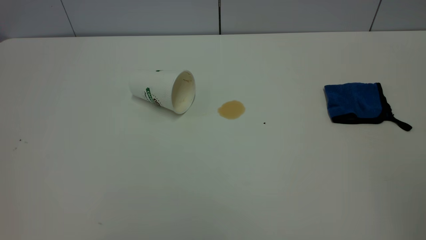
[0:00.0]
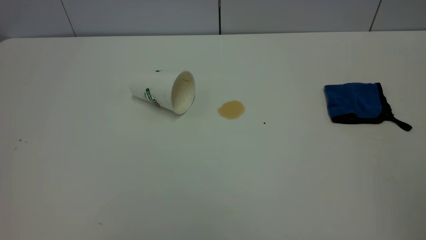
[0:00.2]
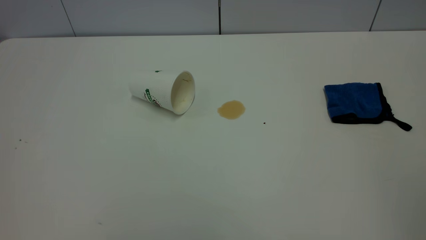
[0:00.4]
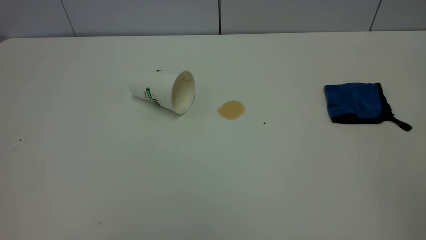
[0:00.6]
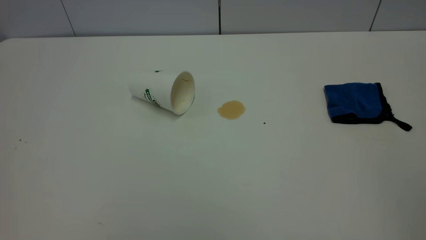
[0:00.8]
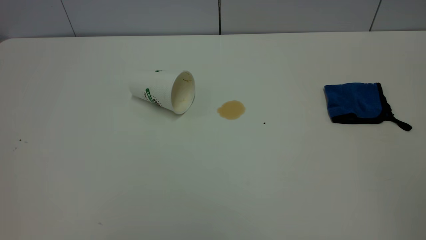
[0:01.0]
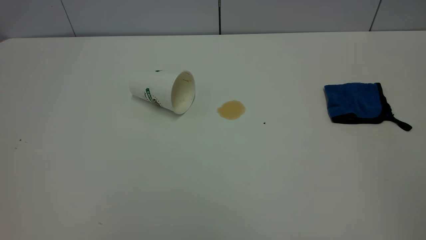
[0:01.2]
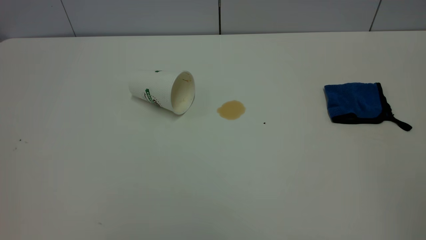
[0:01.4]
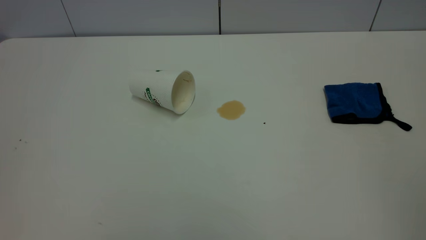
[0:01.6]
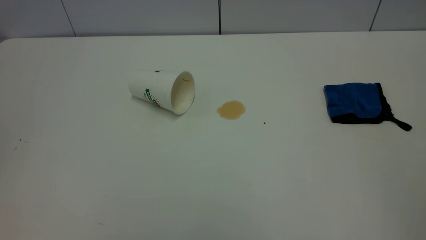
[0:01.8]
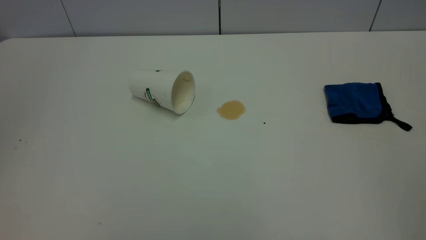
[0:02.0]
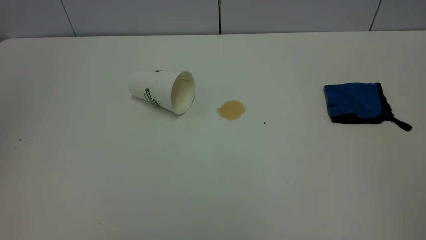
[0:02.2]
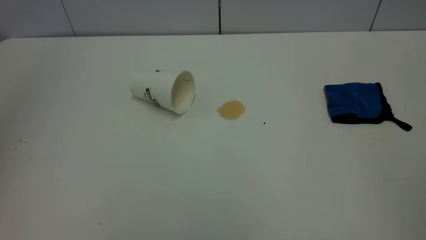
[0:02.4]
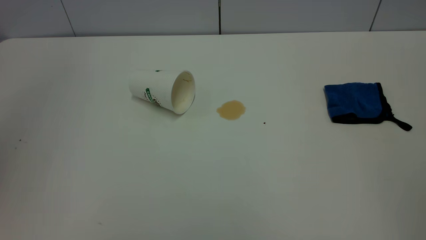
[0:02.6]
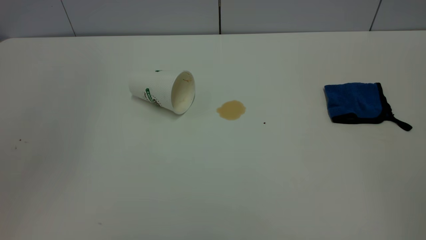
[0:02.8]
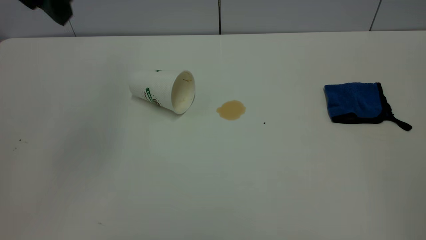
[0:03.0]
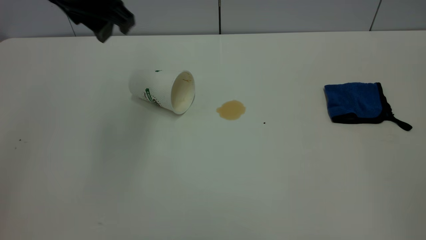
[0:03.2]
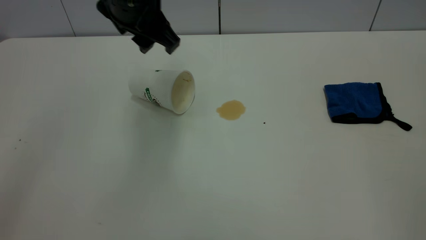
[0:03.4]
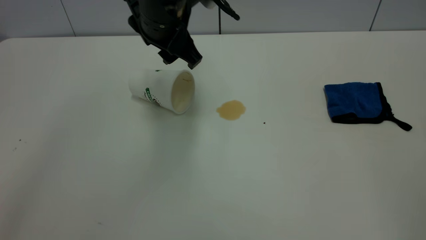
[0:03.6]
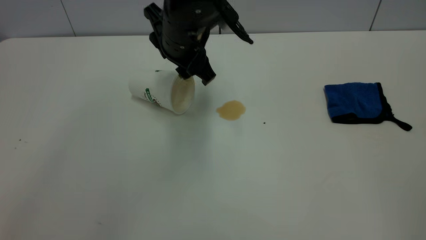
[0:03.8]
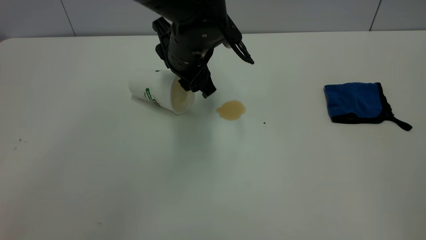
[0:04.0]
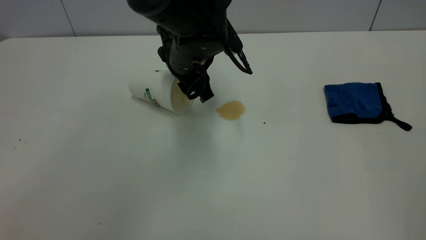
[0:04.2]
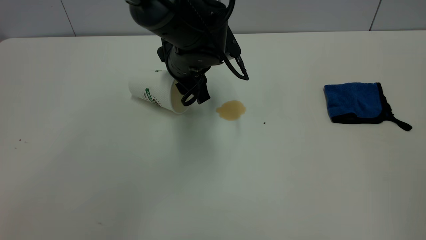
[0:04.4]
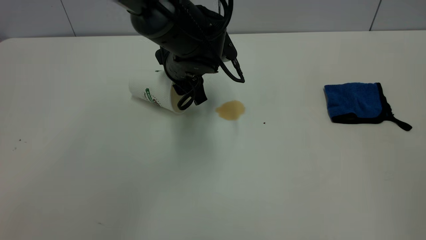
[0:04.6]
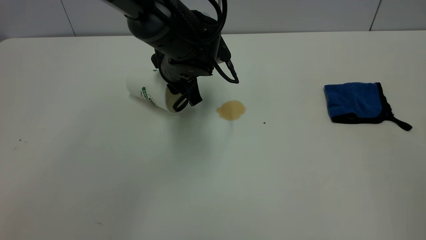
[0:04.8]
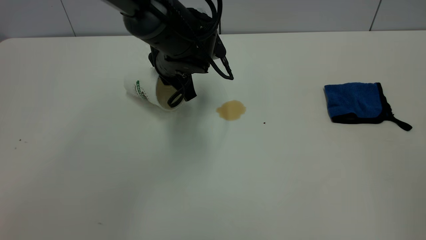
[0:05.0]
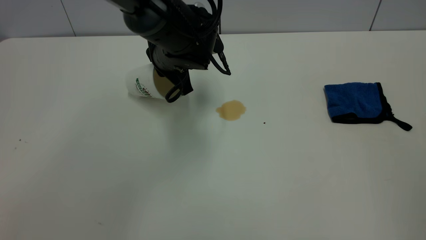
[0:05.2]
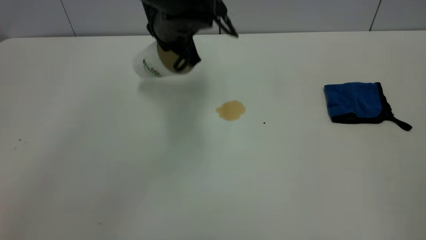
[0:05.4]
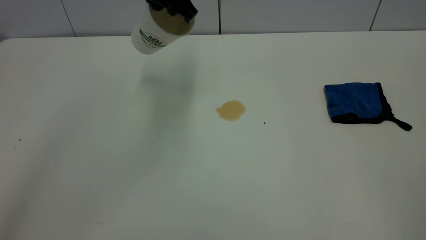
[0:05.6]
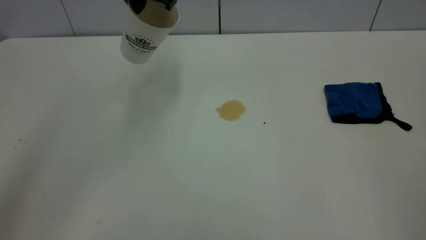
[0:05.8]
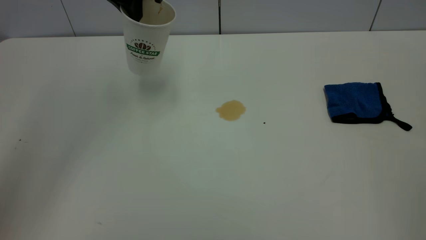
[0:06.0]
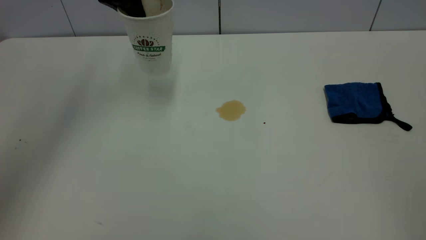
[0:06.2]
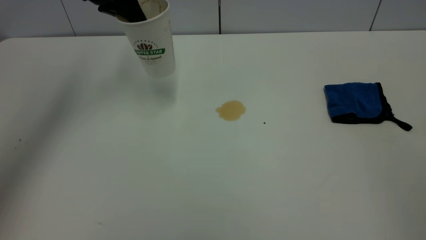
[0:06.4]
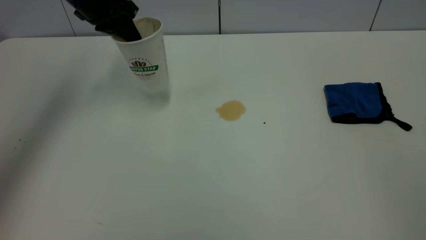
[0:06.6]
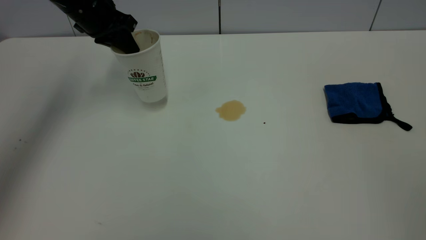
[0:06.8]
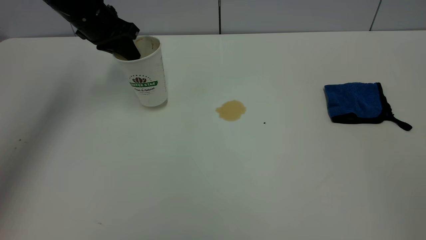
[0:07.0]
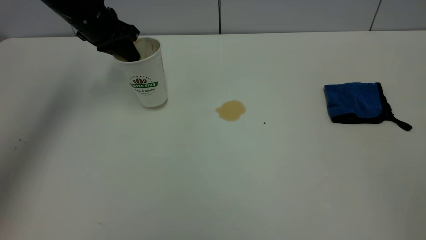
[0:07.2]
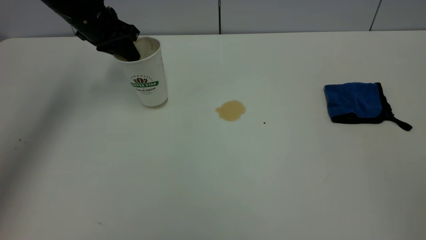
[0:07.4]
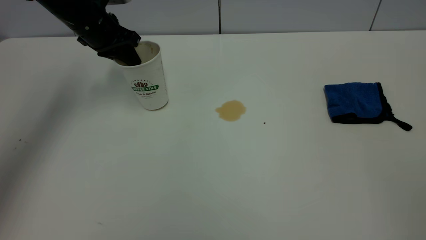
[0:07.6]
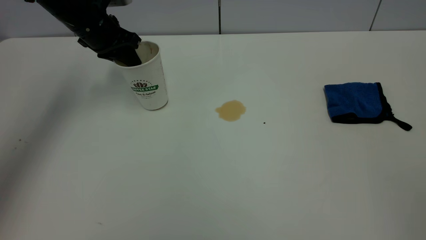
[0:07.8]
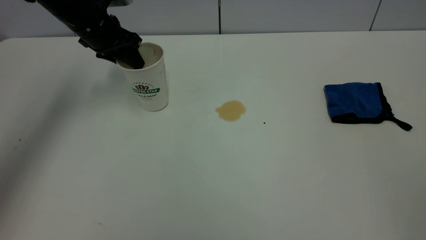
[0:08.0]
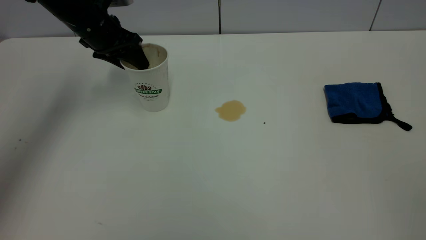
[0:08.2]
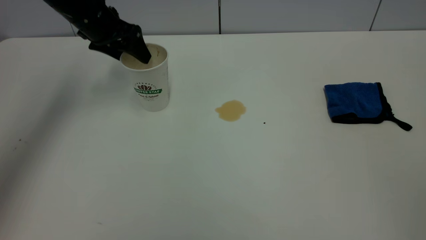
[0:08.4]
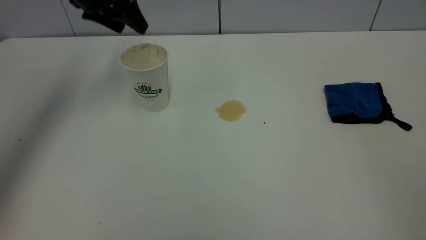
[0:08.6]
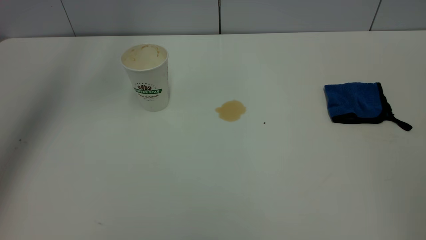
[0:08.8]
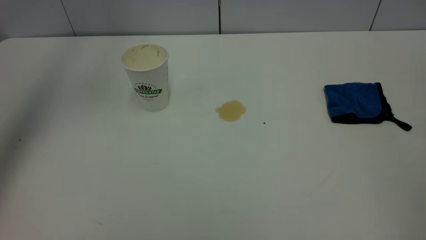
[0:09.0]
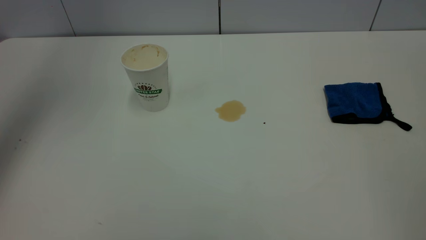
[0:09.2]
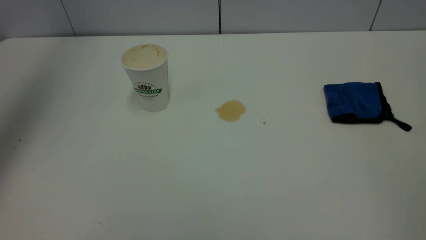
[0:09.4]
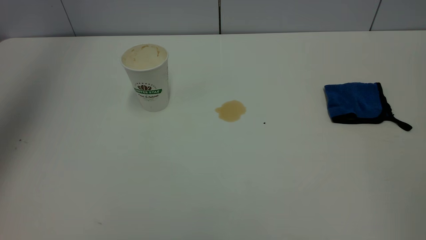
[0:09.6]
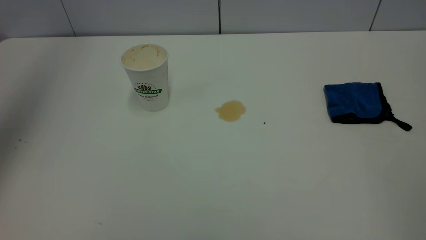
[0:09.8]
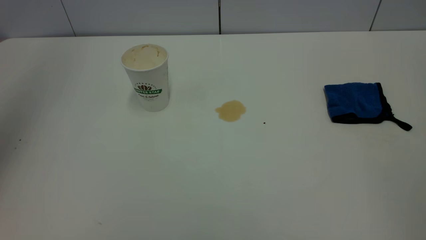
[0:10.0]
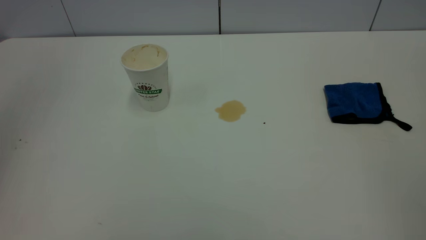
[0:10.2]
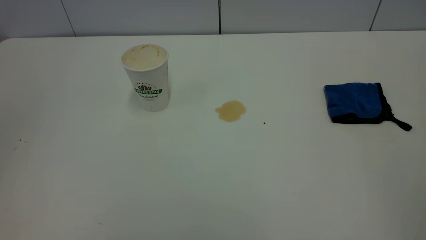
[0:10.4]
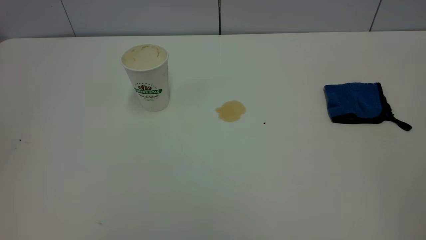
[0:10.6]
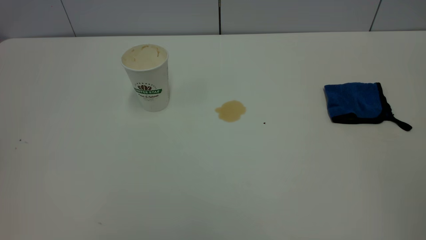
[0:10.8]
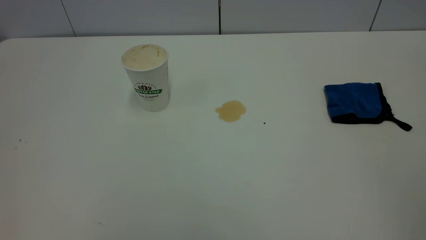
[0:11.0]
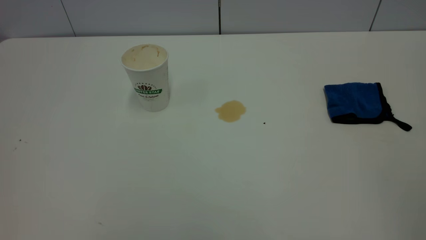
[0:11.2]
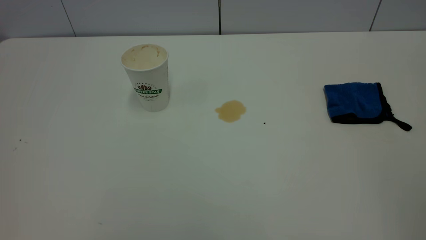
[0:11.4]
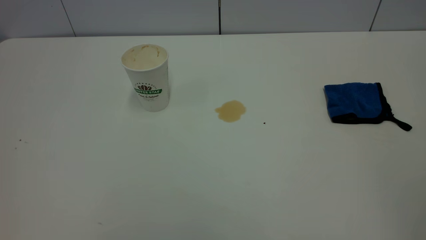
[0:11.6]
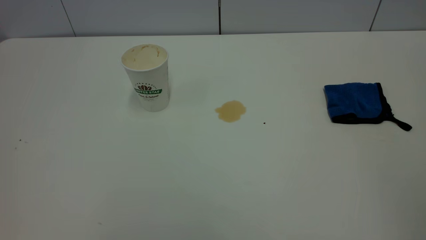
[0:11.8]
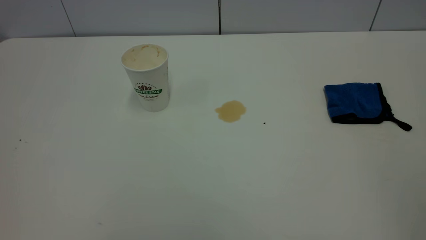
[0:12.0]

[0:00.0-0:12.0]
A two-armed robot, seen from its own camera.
Task of the whole recording: the left gripper pick up the fallen cup and place it upright, the right gripper grasp the blue rag and wipe the tea stain on the table, the right gripper put the blue rag back in its original position.
Step, 0:00.0 to 0:08.4: Stand the paper cup upright.
0:01.6 to 0:03.0: The left gripper moves forward and to the right, approximately 35 cm.
0:03.0 to 0:04.4: The left gripper heads downward and to the right, covering roughly 25 cm.
0:04.4 to 0:06.0: The left gripper travels upward, to the left and forward by about 20 cm, and closes its fingers.
0:06.0 to 0:07.6: The left gripper travels downward and to the left by roughly 15 cm.
0:07.6 to 0:09.0: The left gripper shifts about 25 cm upward, and opens its fingers.
0:09.0 to 0:10.4: The left gripper is displaced backward by approximately 30 cm.

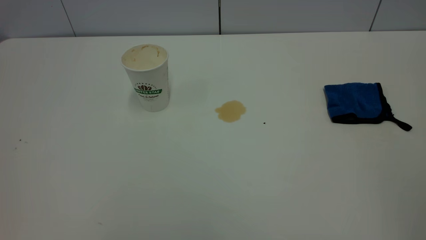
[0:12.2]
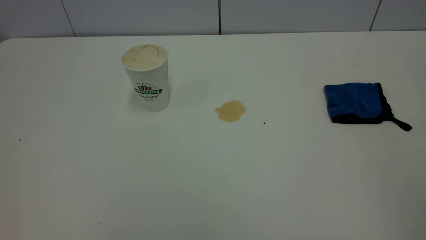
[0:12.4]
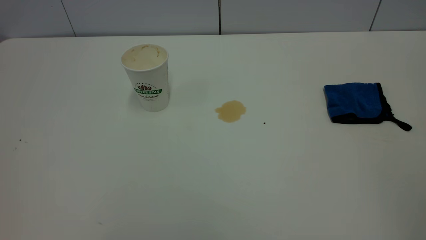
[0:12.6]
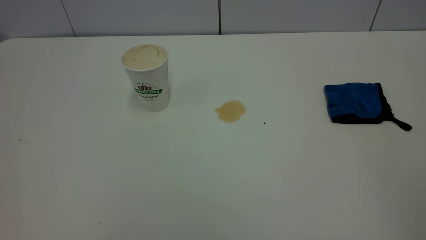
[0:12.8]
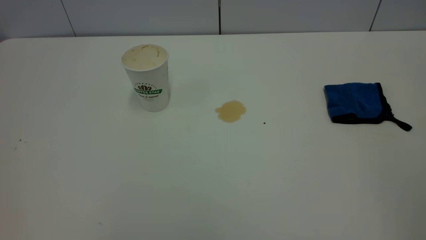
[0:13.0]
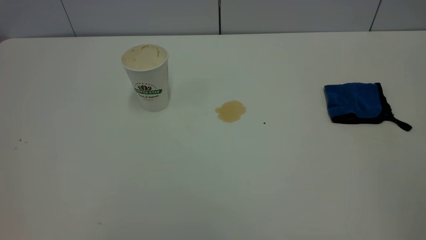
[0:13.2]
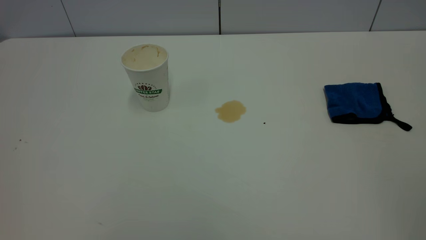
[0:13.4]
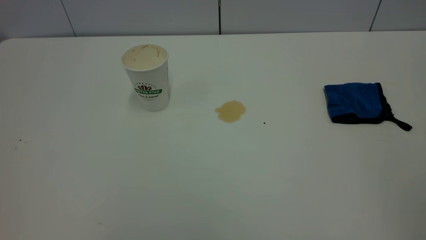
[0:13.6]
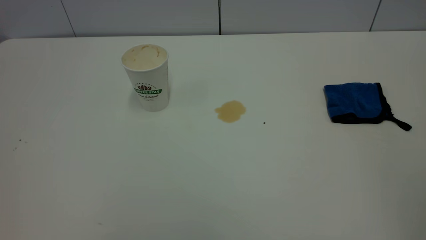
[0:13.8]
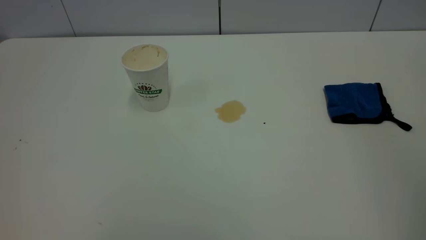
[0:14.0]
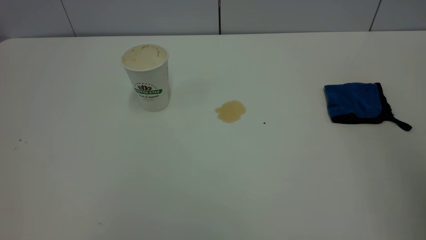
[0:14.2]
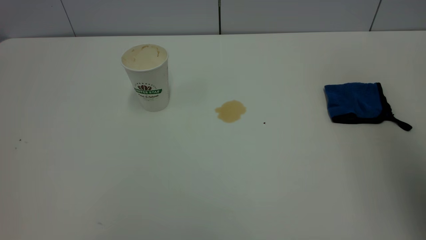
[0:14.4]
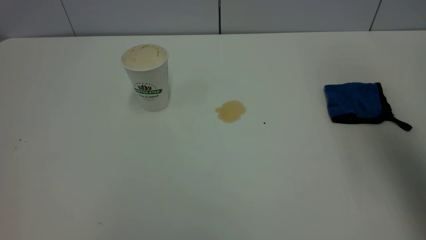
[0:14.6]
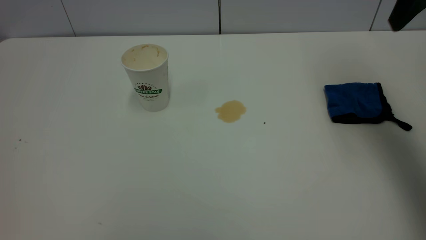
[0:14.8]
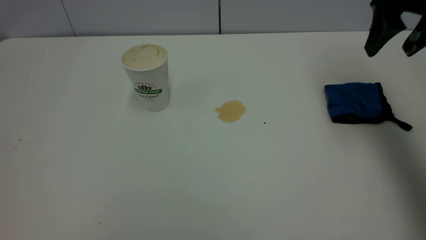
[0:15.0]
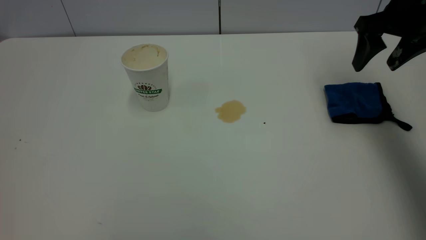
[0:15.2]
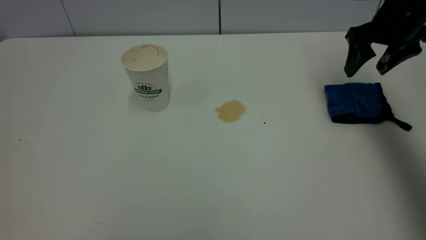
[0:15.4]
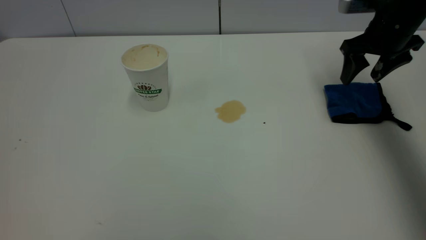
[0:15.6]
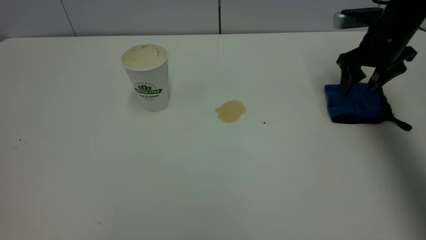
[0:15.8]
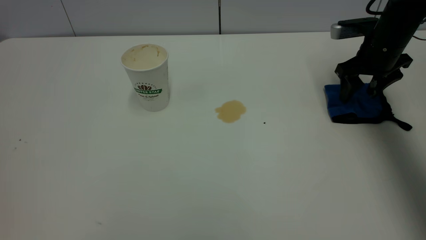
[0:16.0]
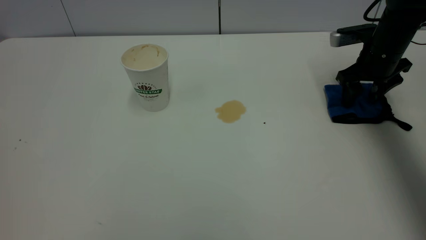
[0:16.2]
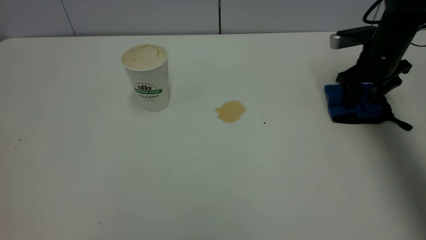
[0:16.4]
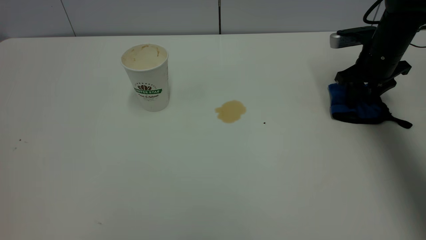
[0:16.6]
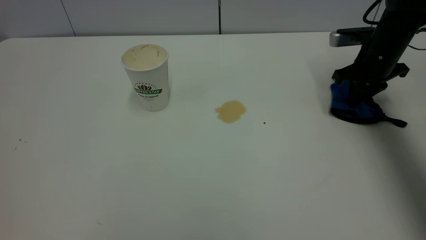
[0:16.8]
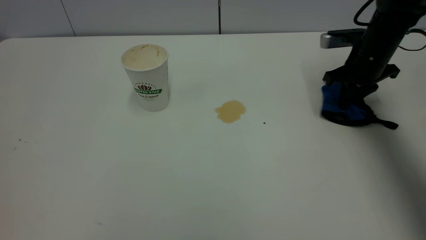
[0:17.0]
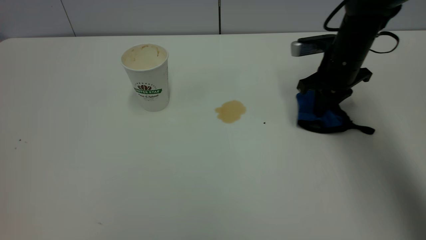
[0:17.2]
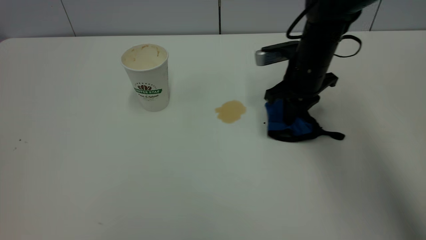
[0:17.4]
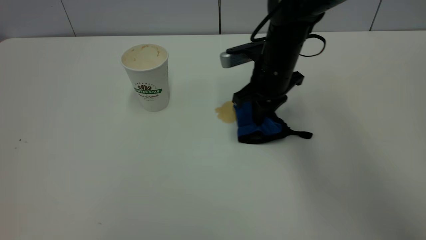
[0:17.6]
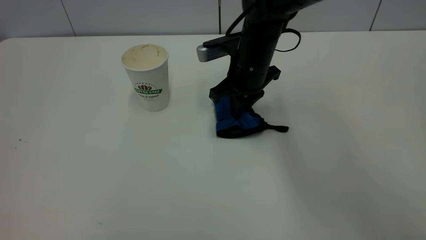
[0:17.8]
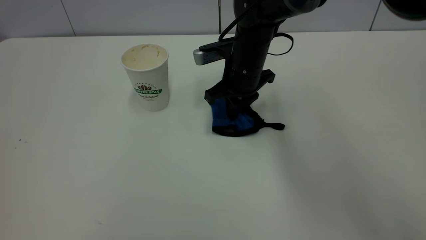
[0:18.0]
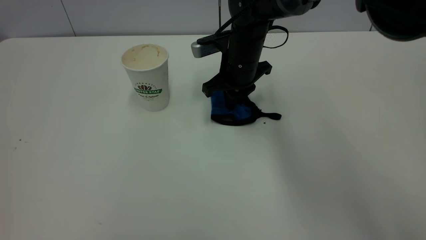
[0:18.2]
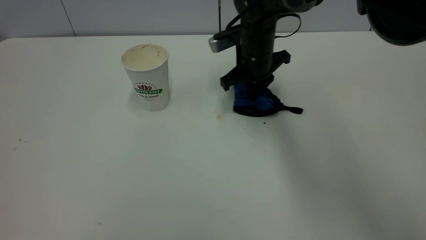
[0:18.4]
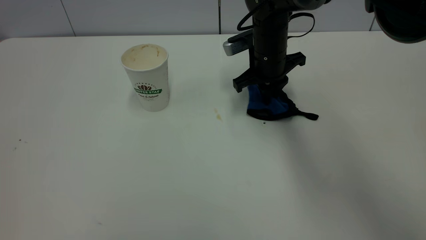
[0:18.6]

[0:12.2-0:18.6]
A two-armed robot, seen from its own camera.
Task of the whole recording: the left gripper pick up the fallen cup and place it upright, the right gripper grasp the blue rag and wipe the tea stain on the table, the right gripper put the blue rag back in its original position.
0:12.2 to 0:13.8: Both grippers stay put.
0:13.8 to 0:15.4: The right gripper heads forward and downward, covering approximately 50 cm.
0:15.4 to 0:17.0: The right gripper goes approximately 10 cm downward, and closes.
0:17.0 to 0:18.6: The right gripper heads to the left, covering approximately 20 cm.
